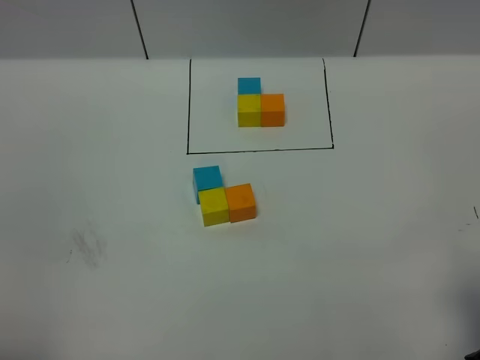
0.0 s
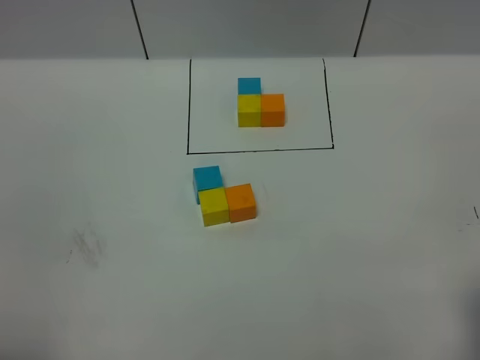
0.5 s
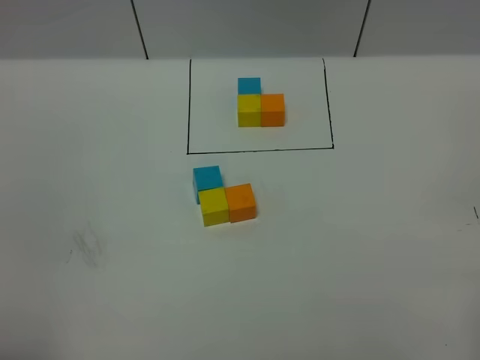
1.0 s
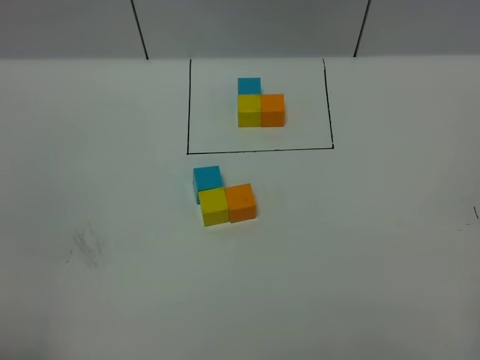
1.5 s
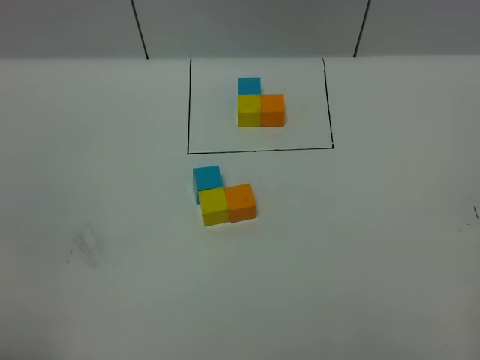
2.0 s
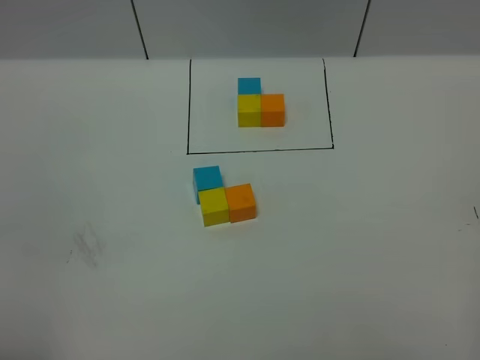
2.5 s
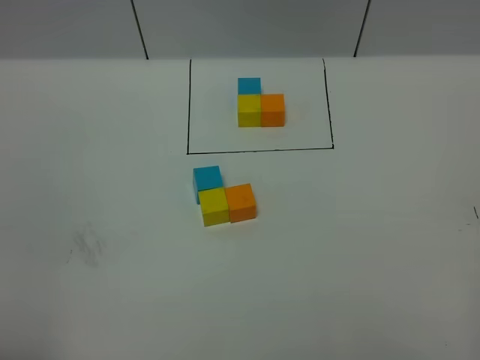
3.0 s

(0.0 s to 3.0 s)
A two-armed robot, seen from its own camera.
Task of the whole recording: According to the building block template in front, assemble the scattered blocks together.
0.0 s - 1.5 s: The right gripper shifts approximately 10 cm backward.
1.5 s - 3.0 s: Neither gripper changes place.
